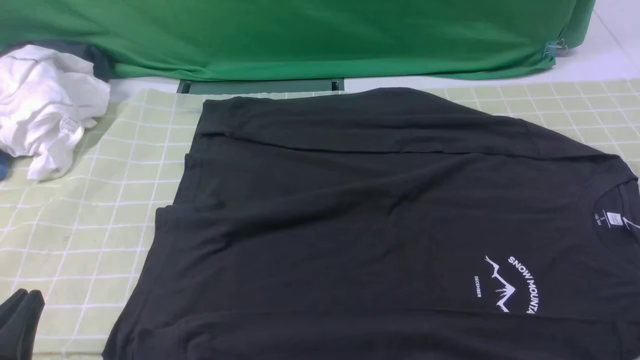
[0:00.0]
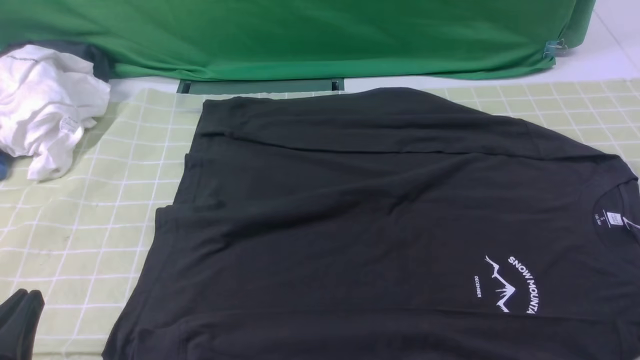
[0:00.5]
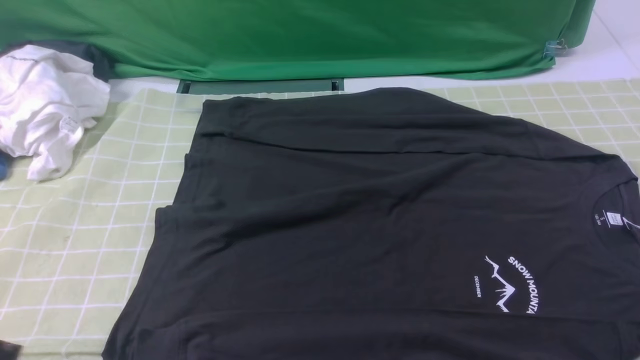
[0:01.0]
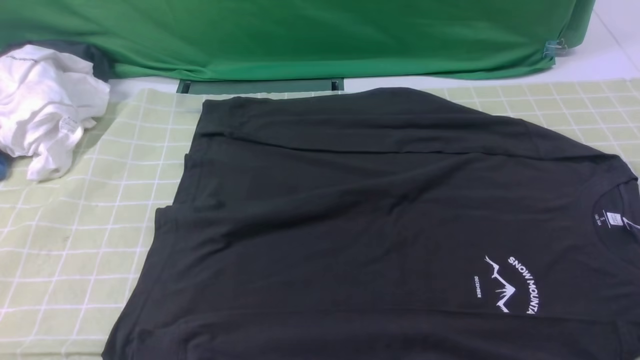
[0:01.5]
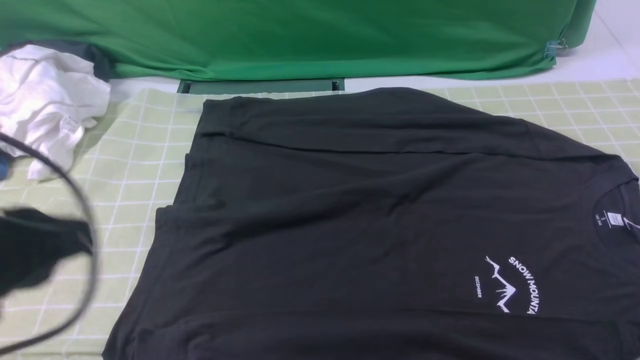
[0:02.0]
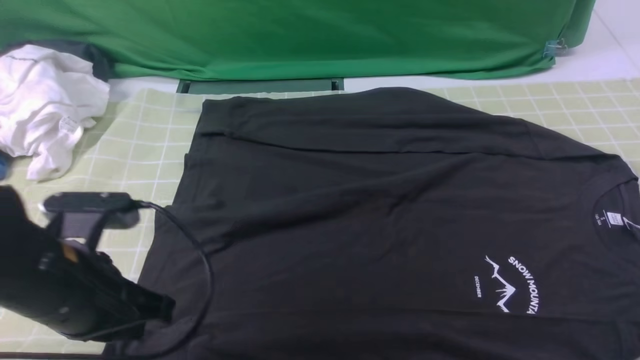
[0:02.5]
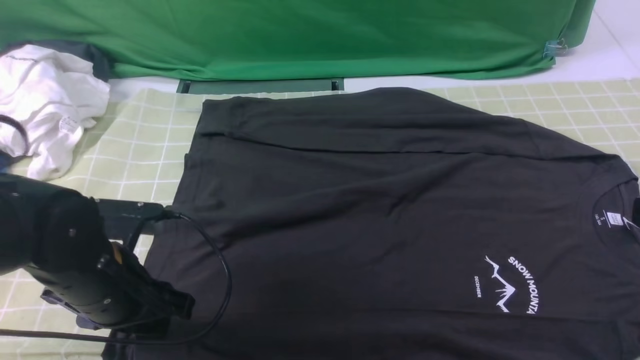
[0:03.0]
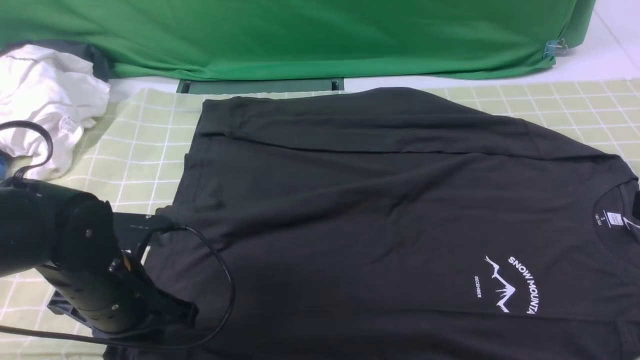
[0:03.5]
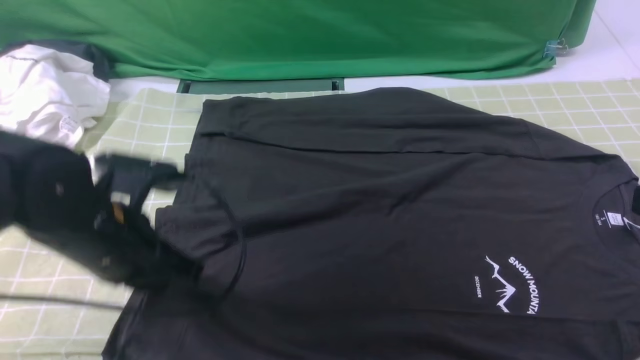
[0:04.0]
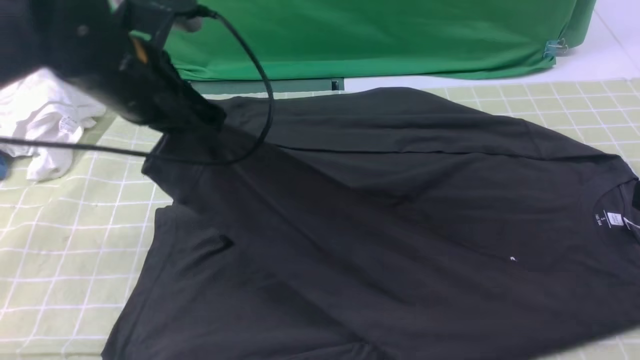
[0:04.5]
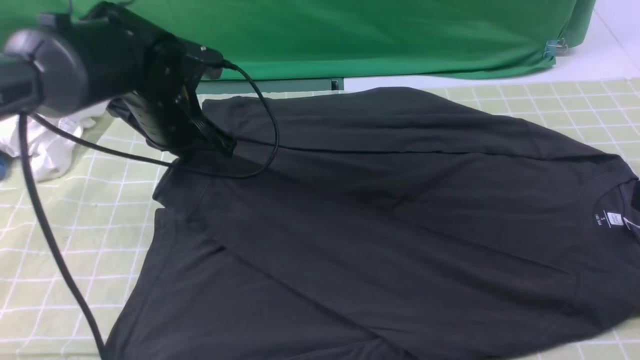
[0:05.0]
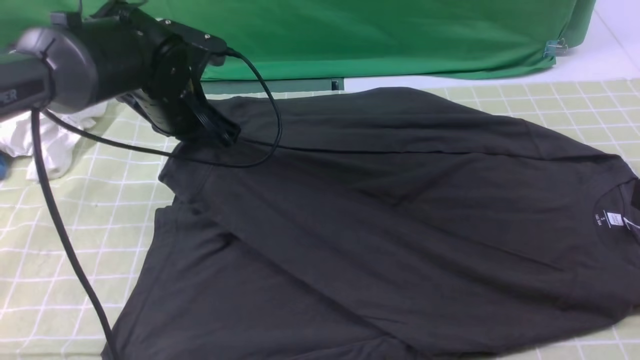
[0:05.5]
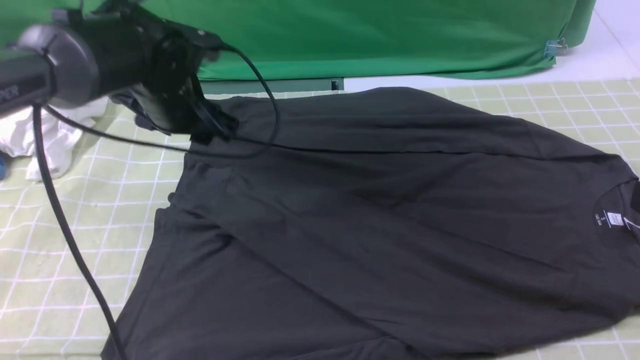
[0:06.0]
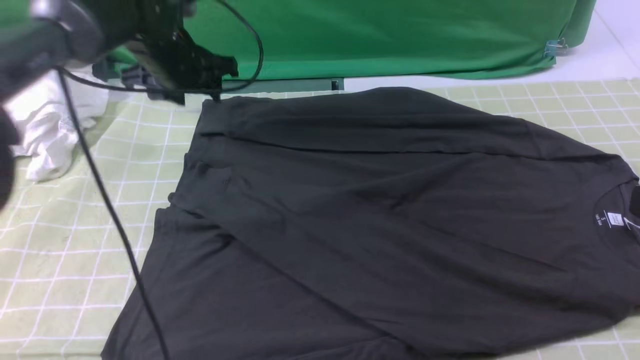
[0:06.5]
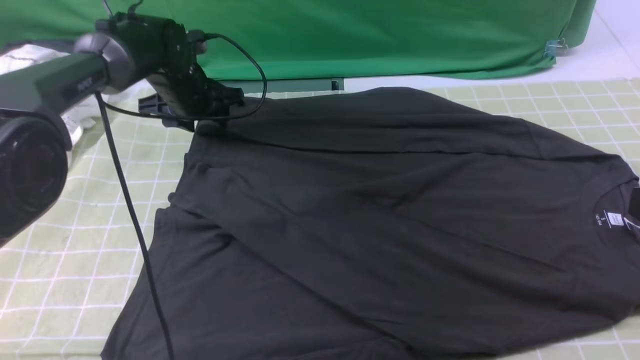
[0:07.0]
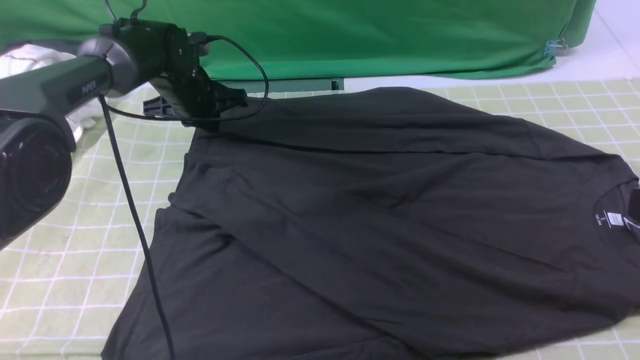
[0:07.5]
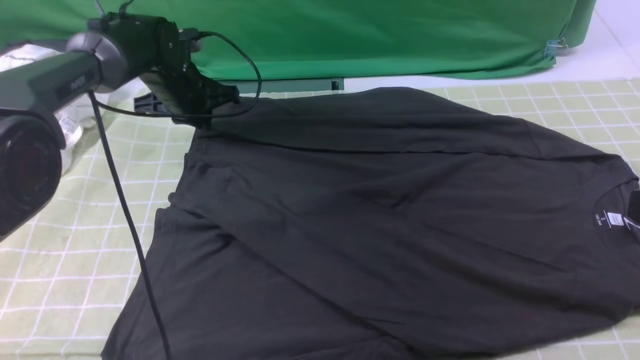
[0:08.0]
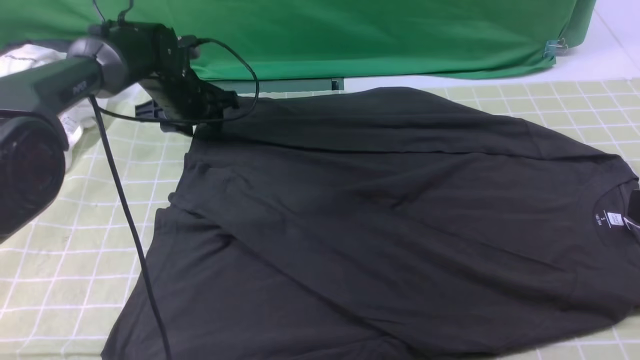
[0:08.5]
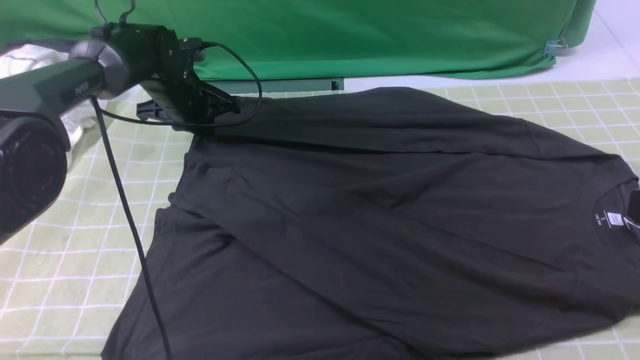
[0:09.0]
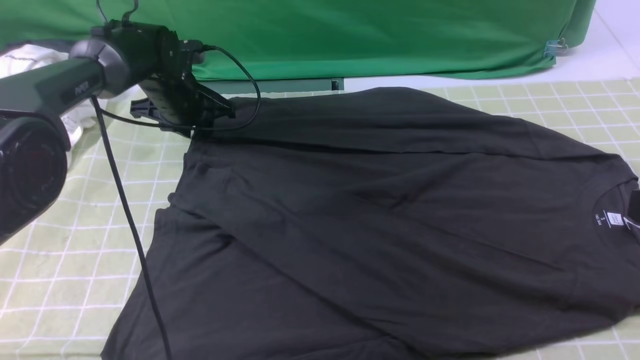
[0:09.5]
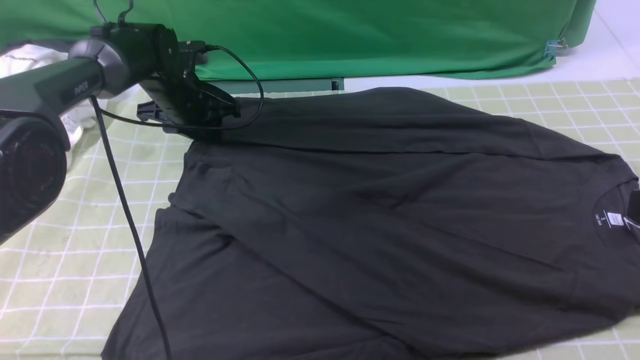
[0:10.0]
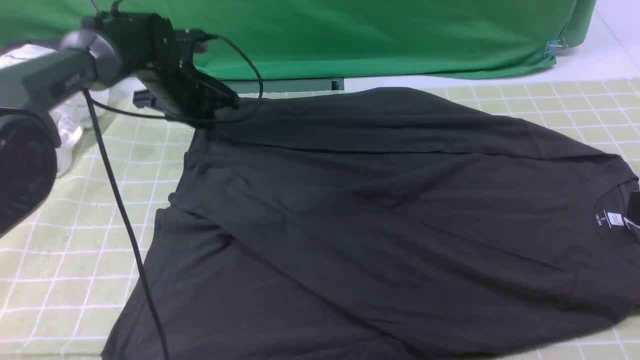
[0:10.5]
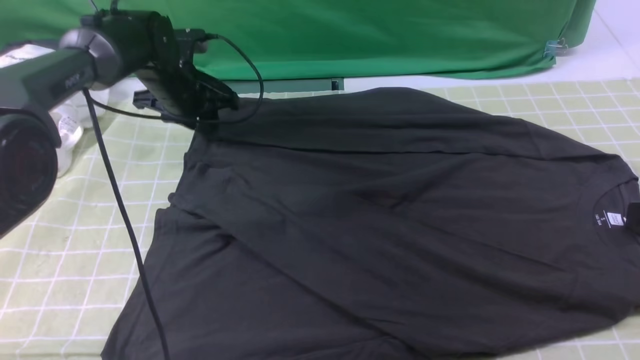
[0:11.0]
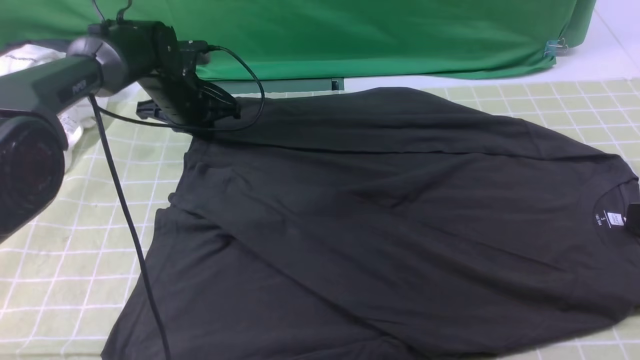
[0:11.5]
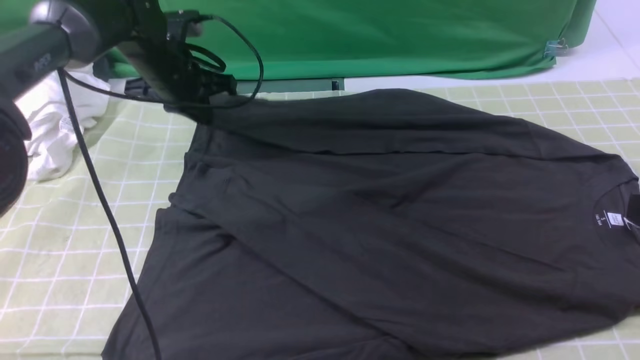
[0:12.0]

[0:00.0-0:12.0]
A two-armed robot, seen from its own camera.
Step, 0:00.0 to 0:03.5: use the left arm to clamp the cuff closest to it.
Step, 0:04.0 to 0:06.0: use the left arm to drag and place the cuff at the centered position on the left edge of the fabric.
Step, 0:06.5 to 0:11.5: use the left arm to clamp the cuff farthest from it.
0:00.0 to 0:02.0: The left gripper travels upward and forward by about 15 cm.
0:02.0 to 0:04.0: The left gripper moves forward and downward, some 15 cm, and opens, then closes again.
0:04.0 to 0:06.0: The left gripper is displaced forward by about 15 cm, and opens up.
0:06.0 to 0:08.0: The left gripper moves forward and downward, approximately 10 cm, and closes.
0:08.0 to 0:10.0: The left gripper opens.
0:10.0 to 0:12.0: The left gripper travels upward by some 5 cm, and closes its fingers.

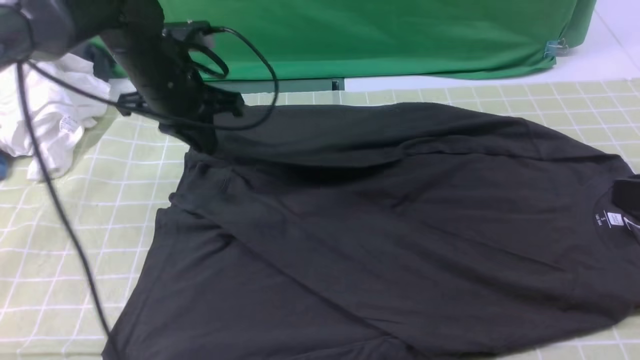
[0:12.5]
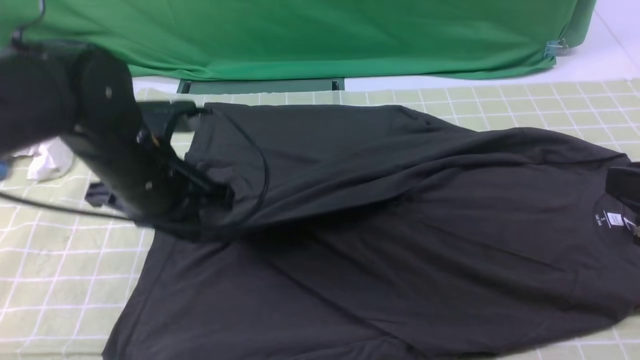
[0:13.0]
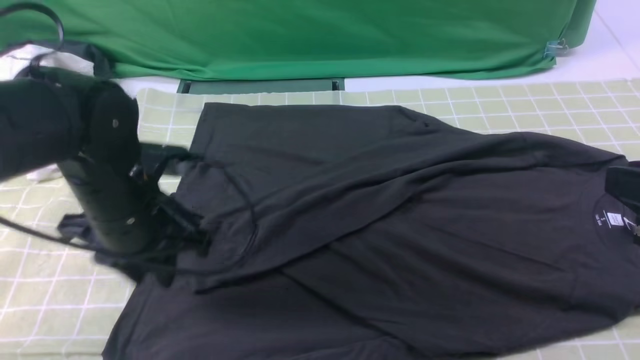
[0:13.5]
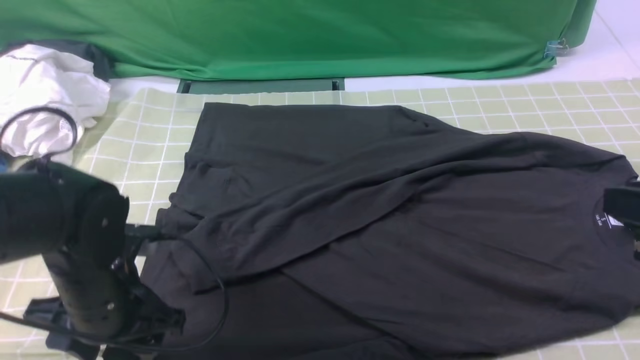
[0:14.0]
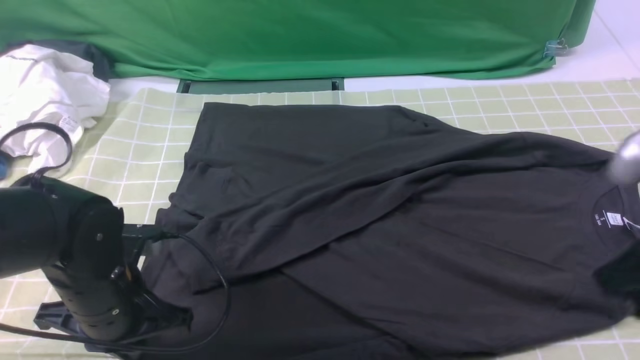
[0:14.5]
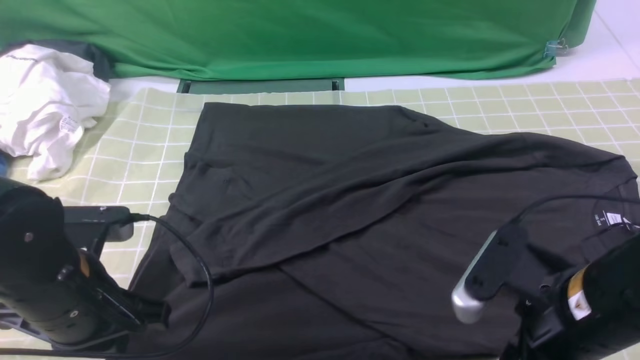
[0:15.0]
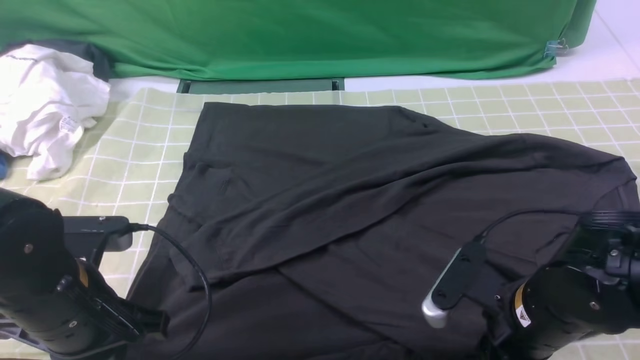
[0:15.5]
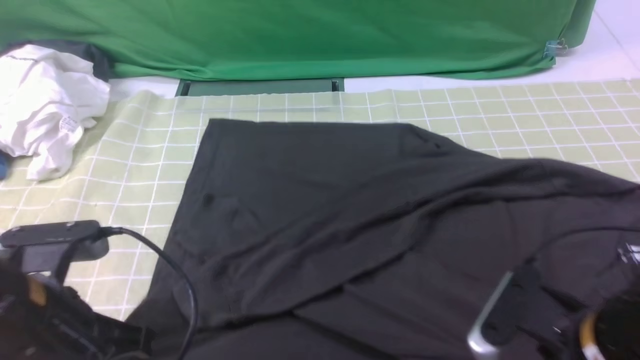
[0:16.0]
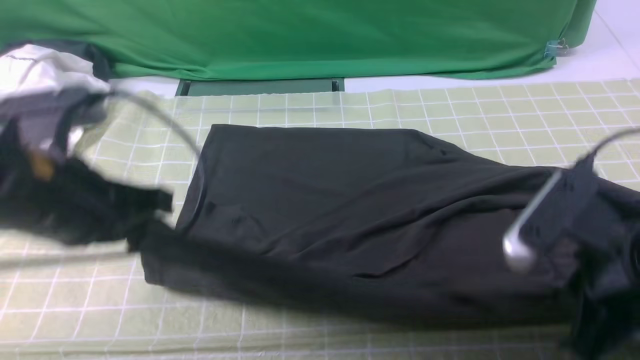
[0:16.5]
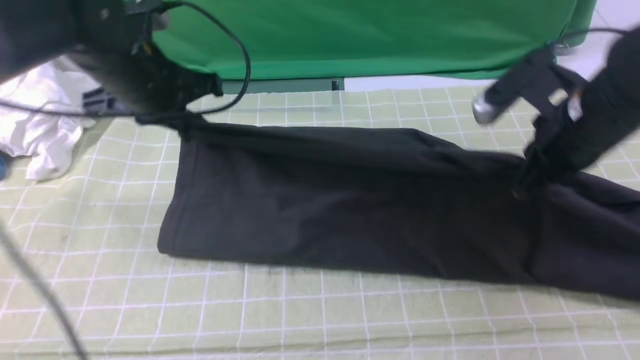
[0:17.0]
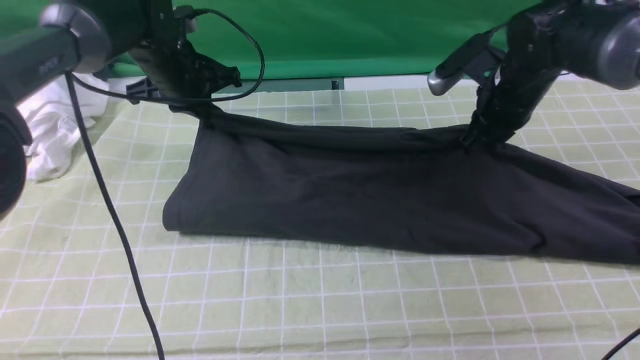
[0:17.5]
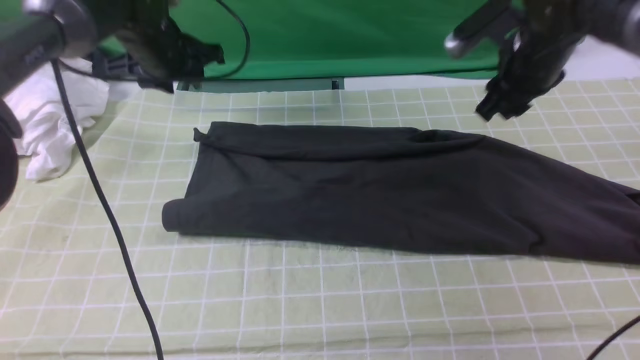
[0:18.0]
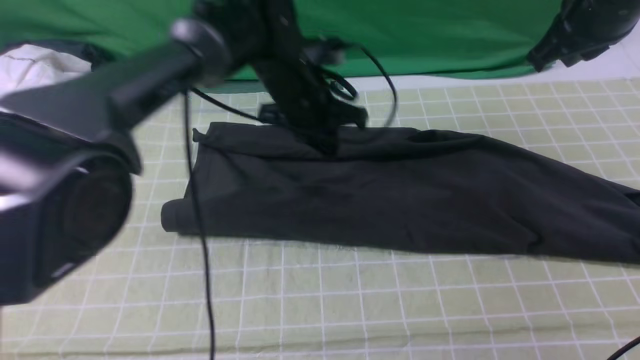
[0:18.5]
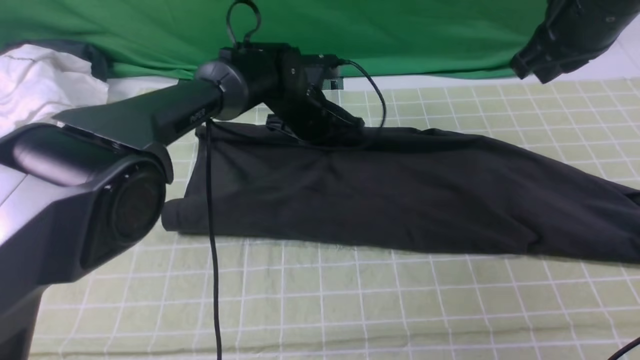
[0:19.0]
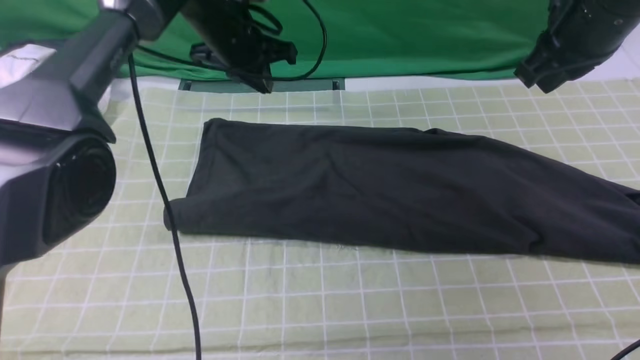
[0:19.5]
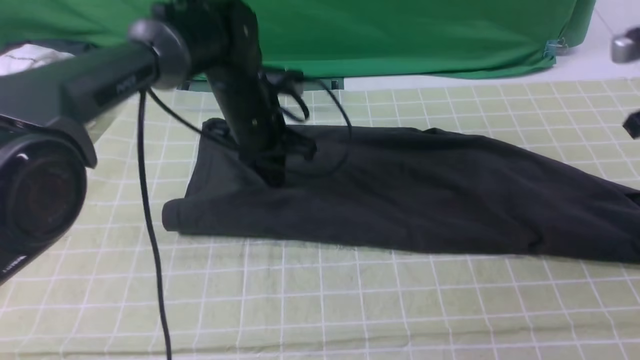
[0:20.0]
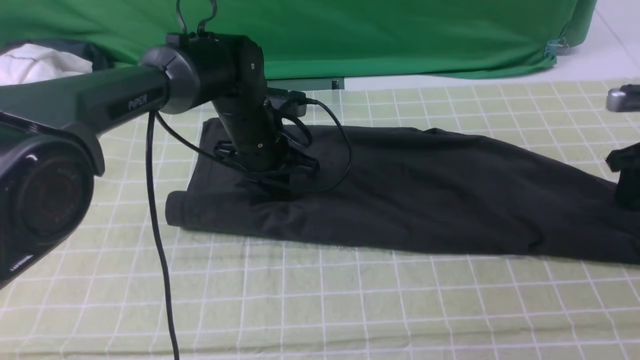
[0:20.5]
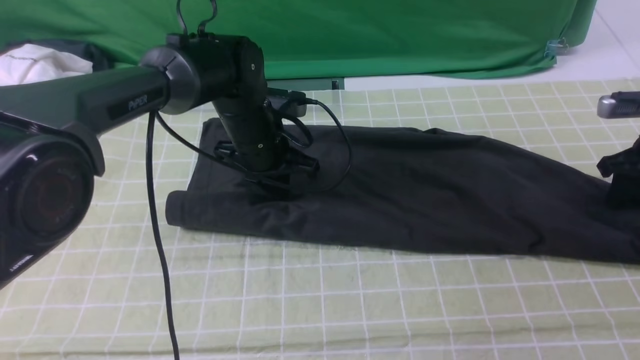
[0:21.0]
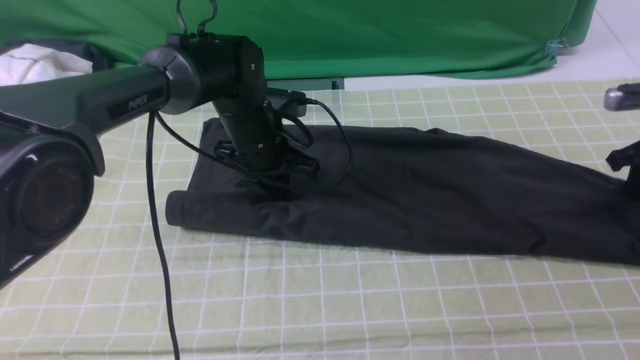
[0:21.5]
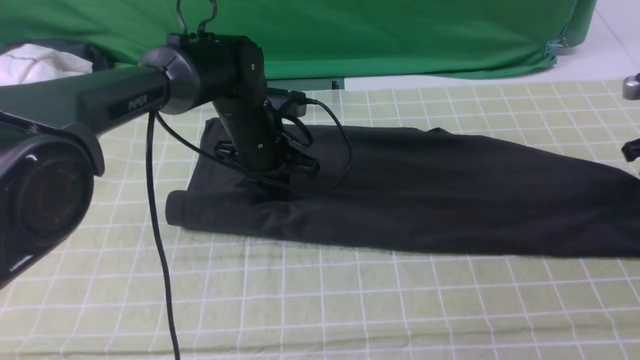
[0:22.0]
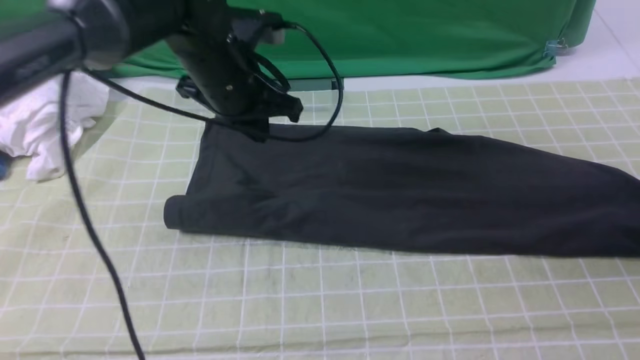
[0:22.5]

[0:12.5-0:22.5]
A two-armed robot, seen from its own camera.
Step, 0:12.5 to 0:13.5: use the left arm to drag and drop the cuff onto the cuff closest to the left arm.
Step, 0:14.0 to 0:15.5: use both arms simultaneously to clamp the lower edge of the clothing fabric.
Step, 0:16.0 to 0:19.0: use both arms to drag the lower edge of the fabric forward and fold it over the upper edge.
0:12.5 to 0:14.5: The left gripper shifts some 20 cm backward and downward, and opens, then closes again.
0:14.5 to 0:16.5: The right gripper goes downward and returns, roughly 15 cm each way, and opens, then closes again. The left gripper goes some 15 cm upward.
0:16.5 to 0:18.5: The right gripper moves forward and upward, some 20 cm, and opens, then closes again; the left gripper goes about 30 cm forward, to the right and downward, and opens, then closes again.
0:18.5 to 0:20.5: The right gripper travels to the right and downward by roughly 25 cm, and opens up. The left gripper moves up and down over roughly 10 cm, changing direction 2 times.
0:20.5 to 0:22.5: The left gripper moves upward, roughly 10 cm; the right gripper opens its fingers.
